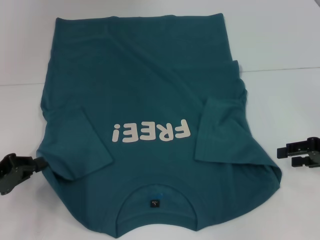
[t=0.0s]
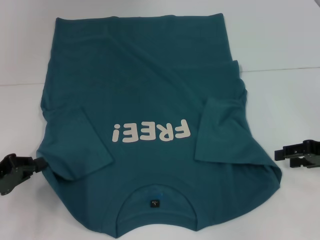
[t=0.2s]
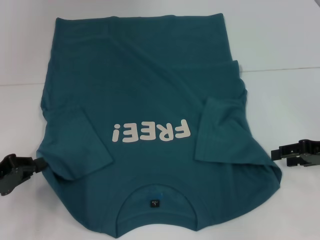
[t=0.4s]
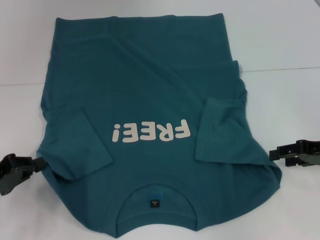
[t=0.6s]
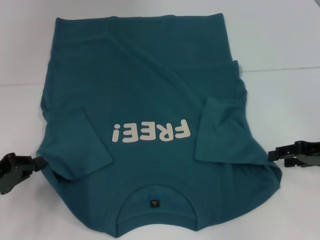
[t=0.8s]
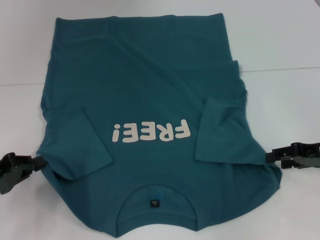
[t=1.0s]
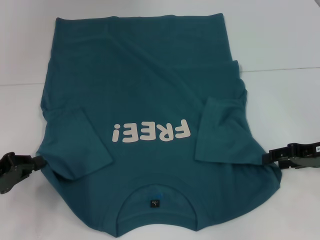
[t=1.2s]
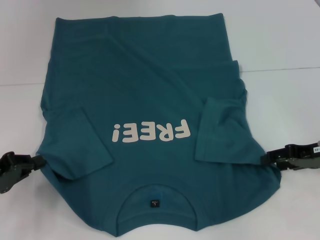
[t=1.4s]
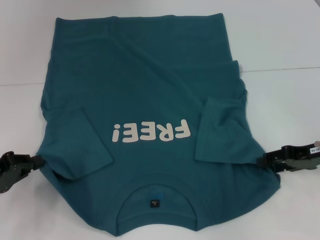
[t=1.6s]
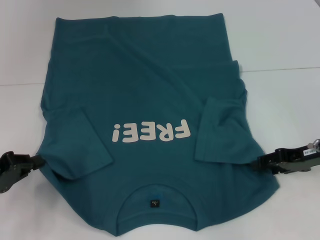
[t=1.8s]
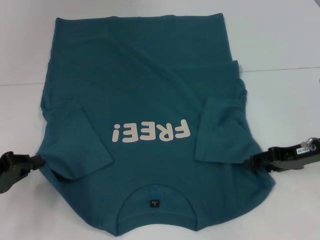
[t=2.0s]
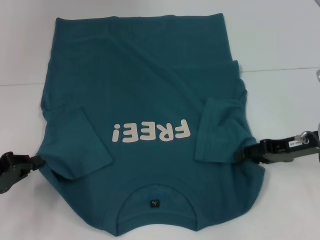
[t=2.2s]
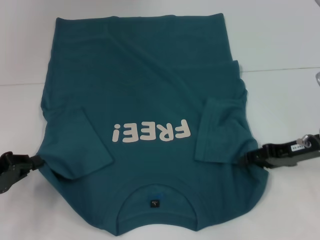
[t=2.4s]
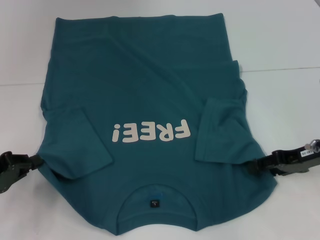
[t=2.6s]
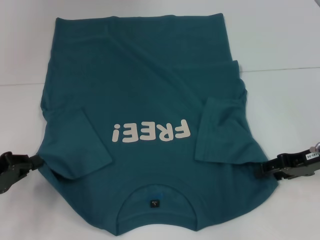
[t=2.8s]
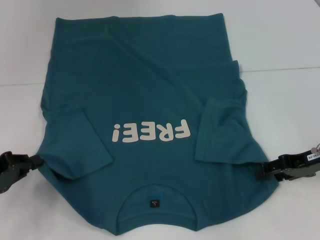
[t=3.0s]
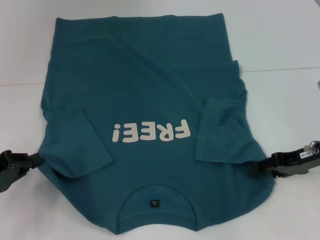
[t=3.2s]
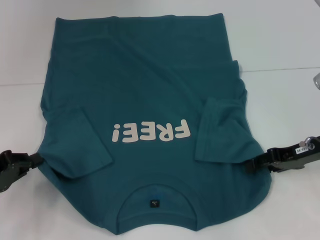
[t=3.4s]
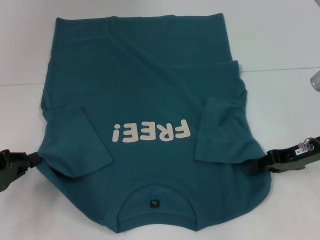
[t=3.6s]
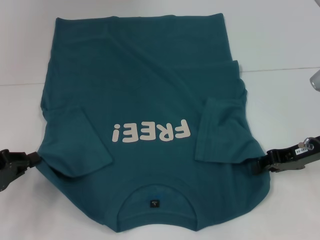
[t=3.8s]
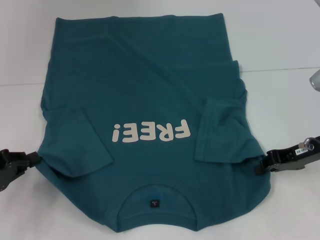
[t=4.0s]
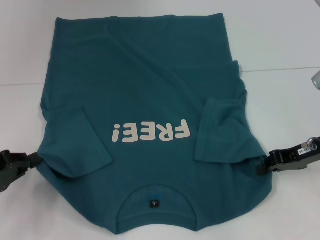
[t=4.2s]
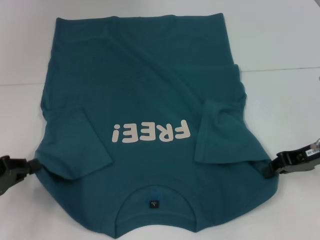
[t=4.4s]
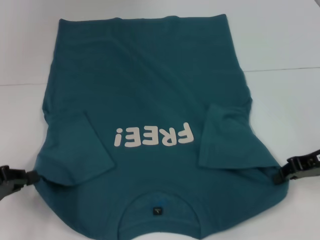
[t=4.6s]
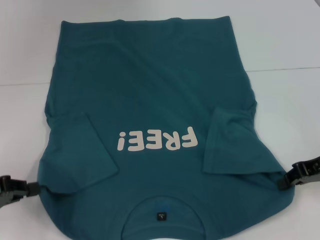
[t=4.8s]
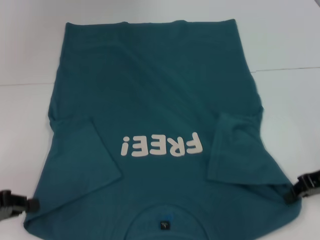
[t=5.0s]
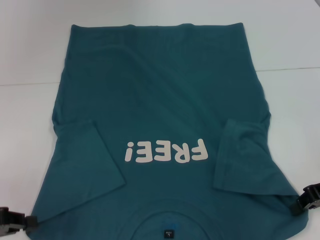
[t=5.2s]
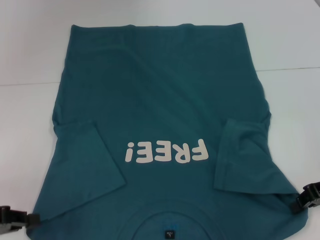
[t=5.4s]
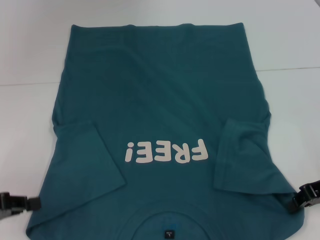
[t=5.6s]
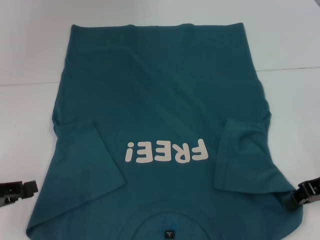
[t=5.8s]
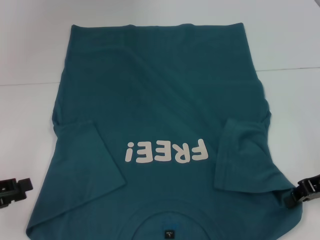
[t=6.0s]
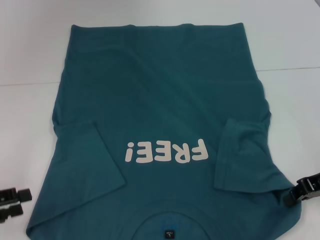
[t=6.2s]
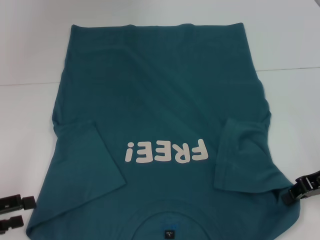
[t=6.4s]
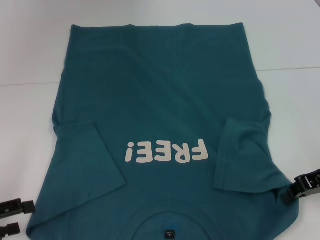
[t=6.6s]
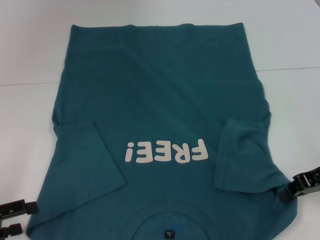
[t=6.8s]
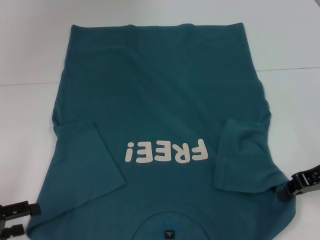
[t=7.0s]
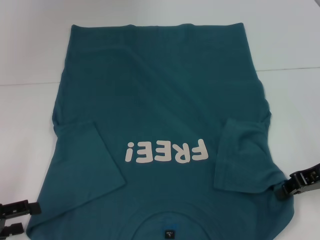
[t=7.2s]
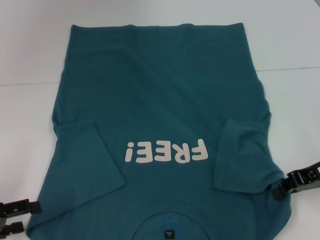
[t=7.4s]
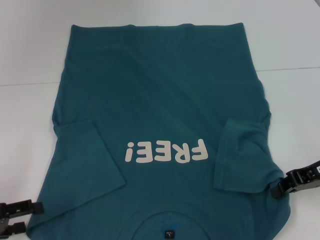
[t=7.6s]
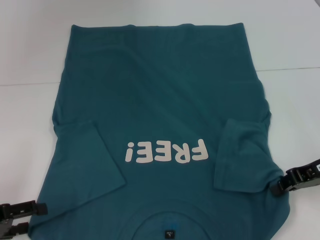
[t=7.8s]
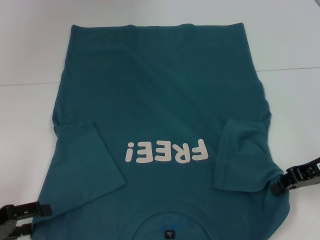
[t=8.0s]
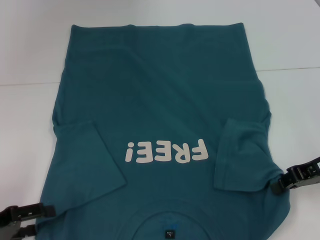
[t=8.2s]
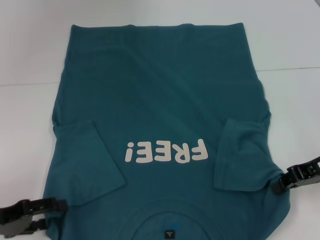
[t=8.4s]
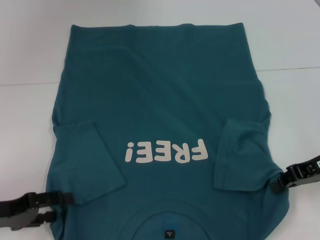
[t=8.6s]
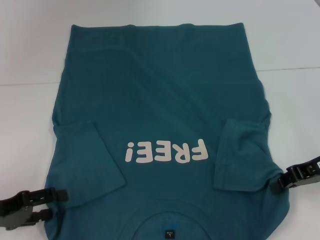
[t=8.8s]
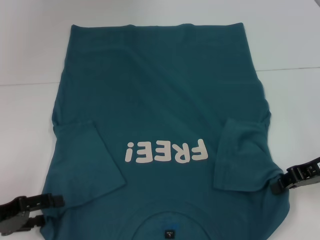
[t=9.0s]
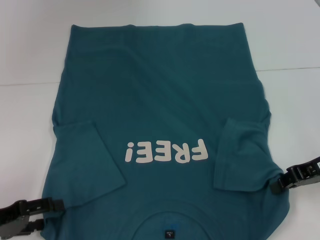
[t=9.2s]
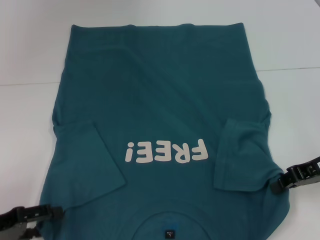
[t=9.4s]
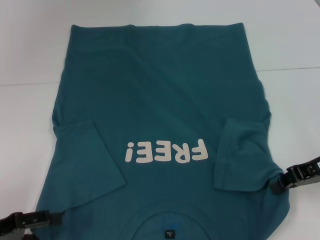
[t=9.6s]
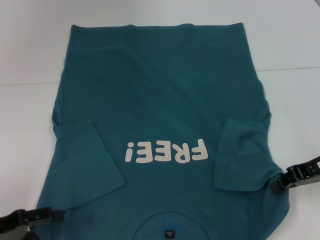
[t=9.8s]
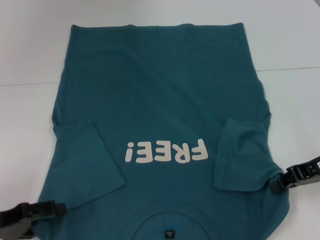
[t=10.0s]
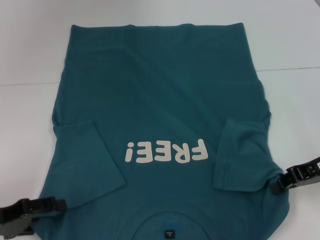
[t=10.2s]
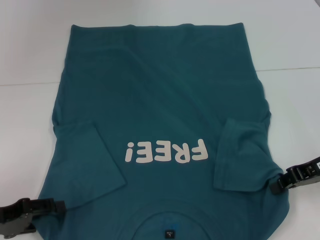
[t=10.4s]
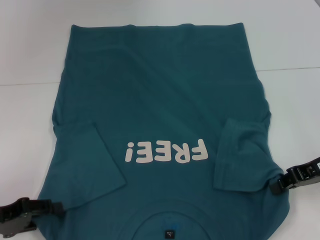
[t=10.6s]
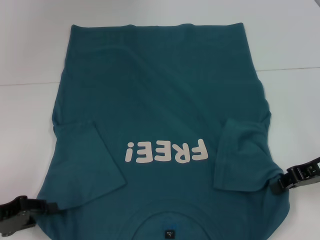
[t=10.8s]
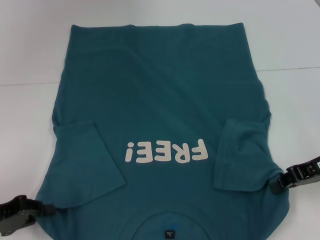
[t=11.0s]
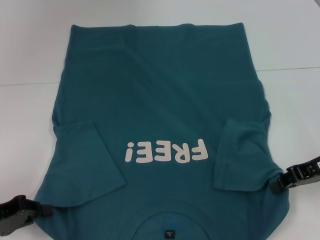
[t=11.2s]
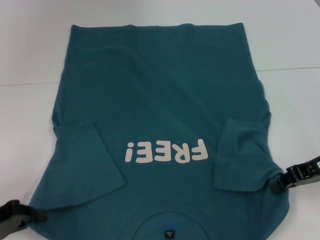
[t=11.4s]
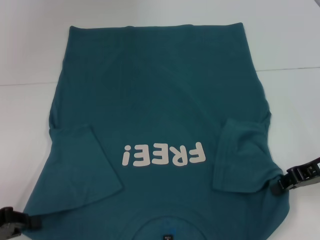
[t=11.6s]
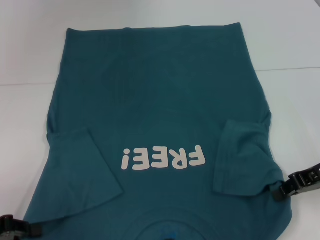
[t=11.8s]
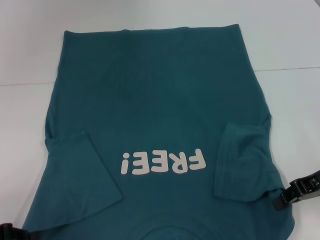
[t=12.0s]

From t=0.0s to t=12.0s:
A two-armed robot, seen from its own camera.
Step, from t=0.0s to t=4.0s: Grab the bottom right corner with your right hand.
From t=0.0s to t=1.6s: The grippers make only small movements.
From t=1.6s to t=3.0s: The grippers make only small movements.
From t=3.0s to t=4.4s: The right gripper closes.
From t=6.0s to t=7.6s: The left gripper opens its fingers.
From t=7.6s to t=10.4s: The grippers make only small movements.
From t=10.4s to t=12.0s: The left gripper closes up.

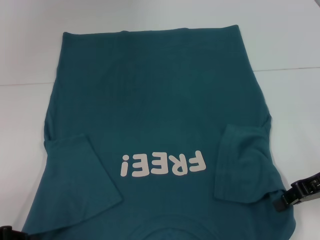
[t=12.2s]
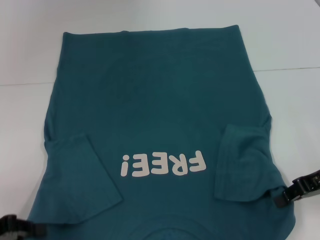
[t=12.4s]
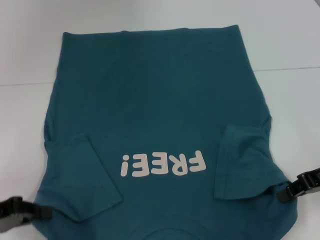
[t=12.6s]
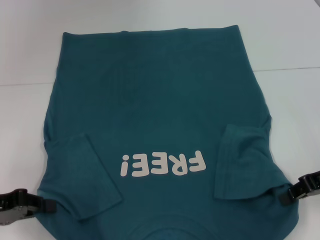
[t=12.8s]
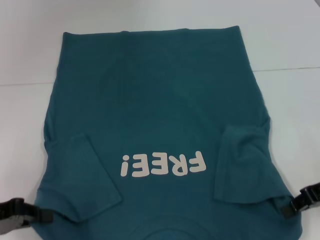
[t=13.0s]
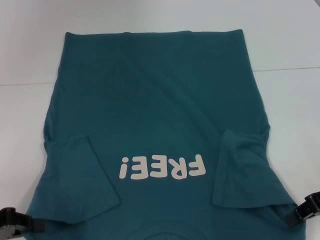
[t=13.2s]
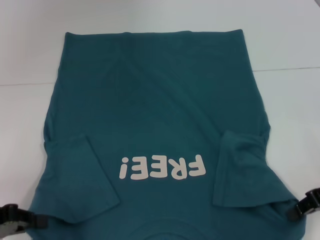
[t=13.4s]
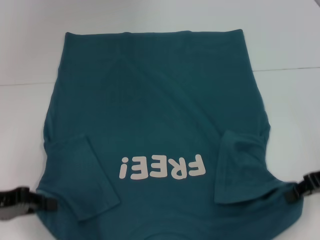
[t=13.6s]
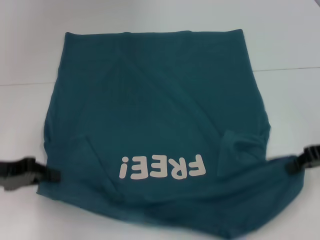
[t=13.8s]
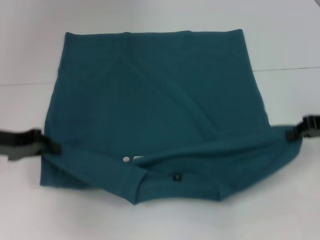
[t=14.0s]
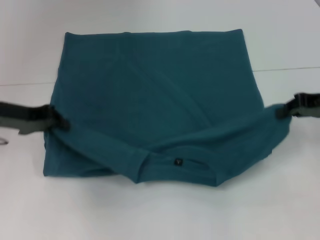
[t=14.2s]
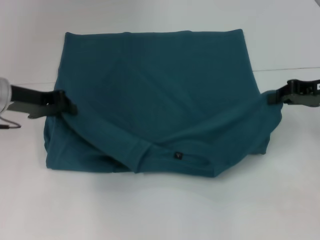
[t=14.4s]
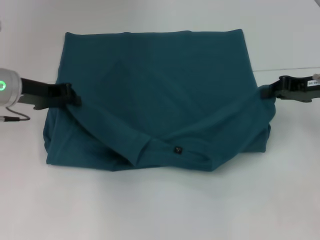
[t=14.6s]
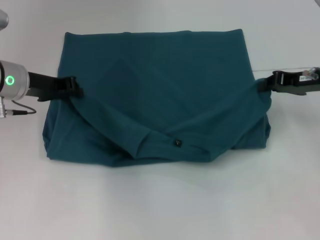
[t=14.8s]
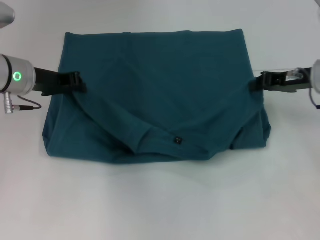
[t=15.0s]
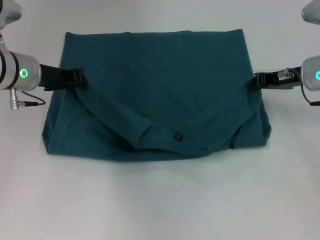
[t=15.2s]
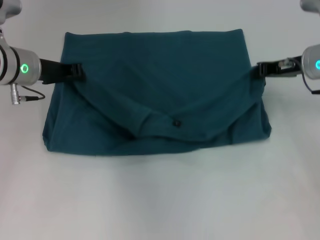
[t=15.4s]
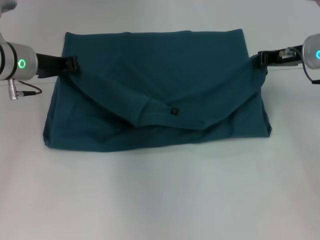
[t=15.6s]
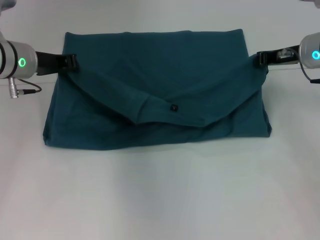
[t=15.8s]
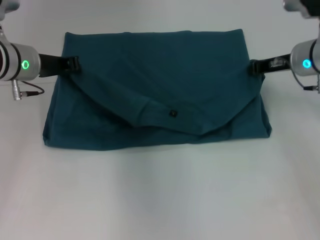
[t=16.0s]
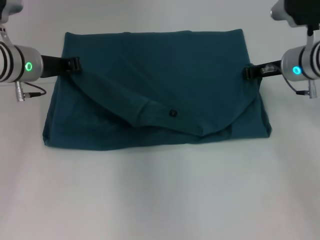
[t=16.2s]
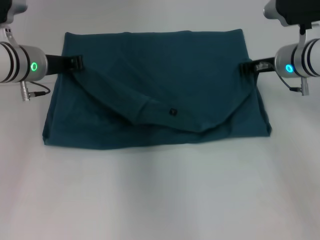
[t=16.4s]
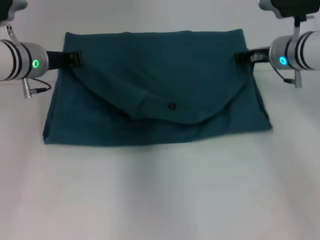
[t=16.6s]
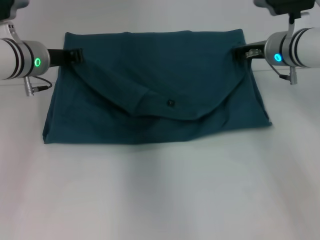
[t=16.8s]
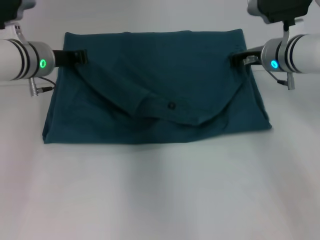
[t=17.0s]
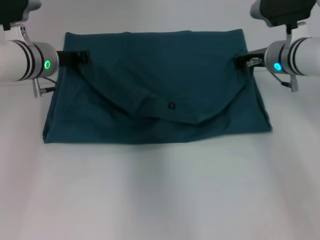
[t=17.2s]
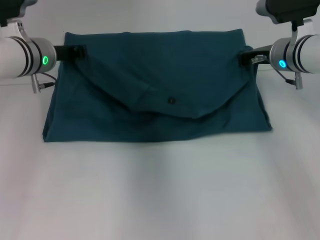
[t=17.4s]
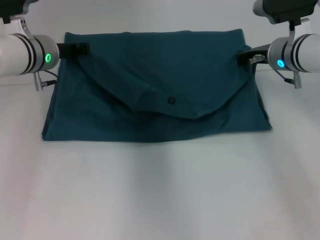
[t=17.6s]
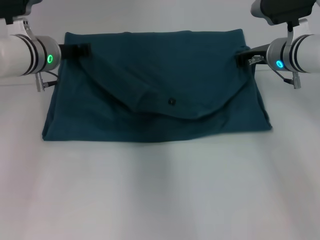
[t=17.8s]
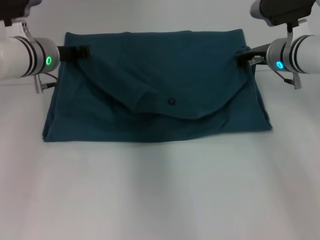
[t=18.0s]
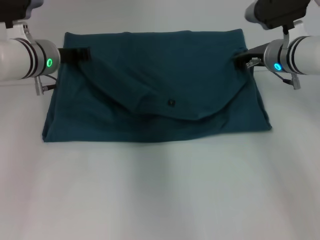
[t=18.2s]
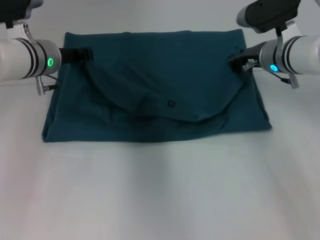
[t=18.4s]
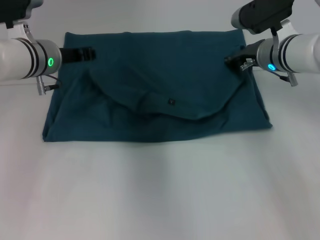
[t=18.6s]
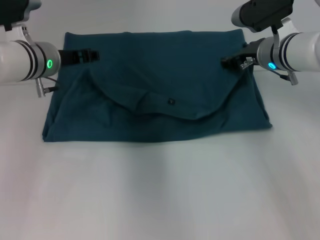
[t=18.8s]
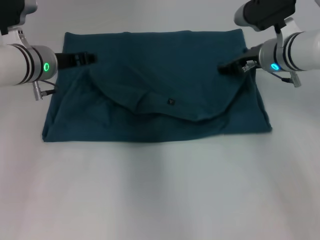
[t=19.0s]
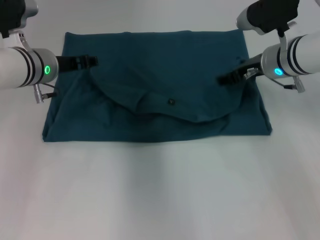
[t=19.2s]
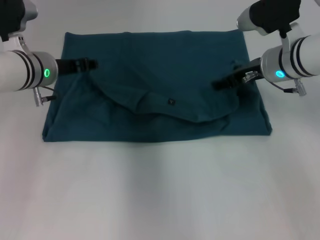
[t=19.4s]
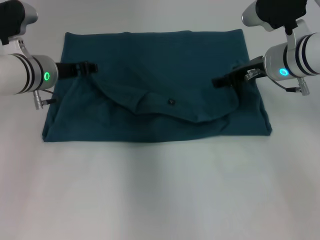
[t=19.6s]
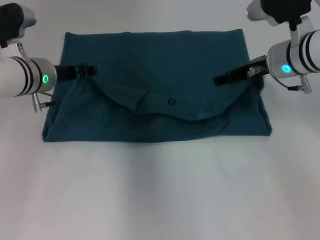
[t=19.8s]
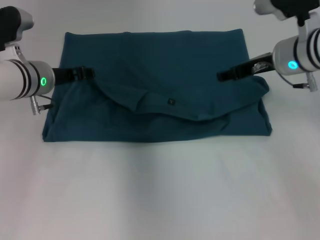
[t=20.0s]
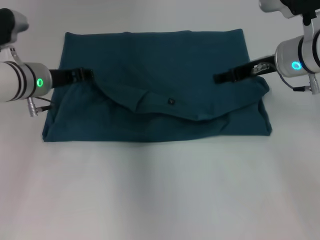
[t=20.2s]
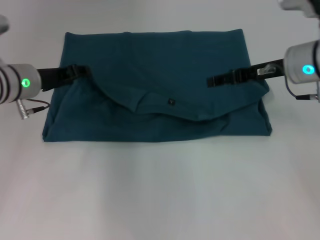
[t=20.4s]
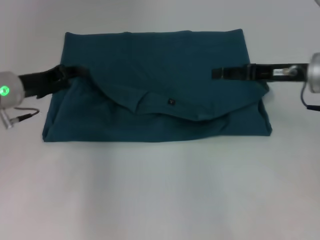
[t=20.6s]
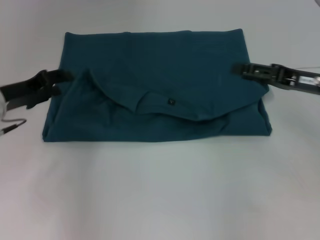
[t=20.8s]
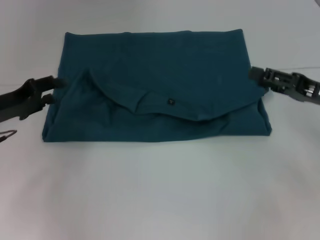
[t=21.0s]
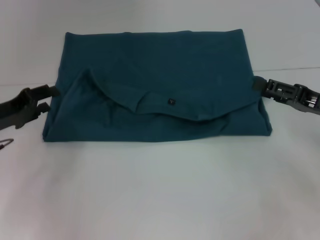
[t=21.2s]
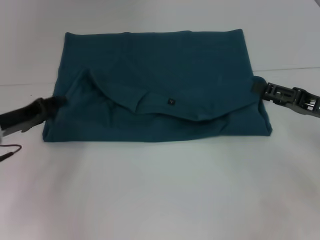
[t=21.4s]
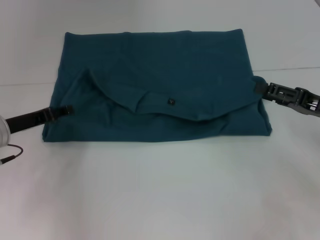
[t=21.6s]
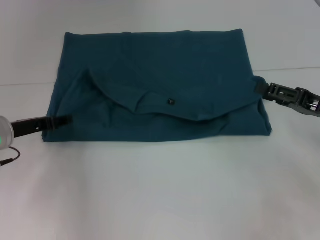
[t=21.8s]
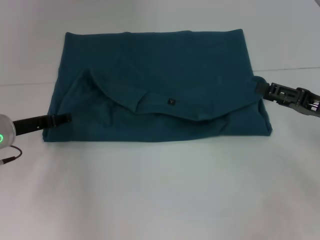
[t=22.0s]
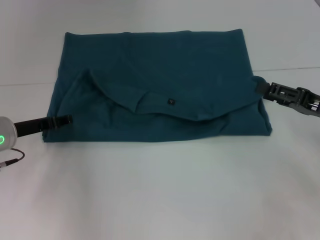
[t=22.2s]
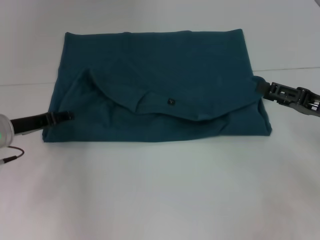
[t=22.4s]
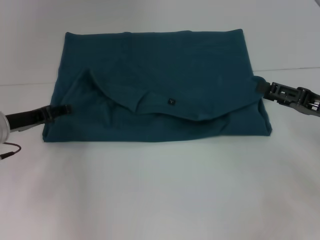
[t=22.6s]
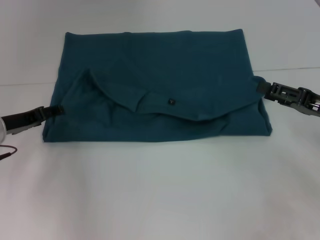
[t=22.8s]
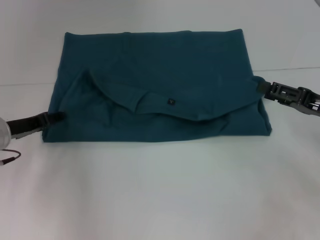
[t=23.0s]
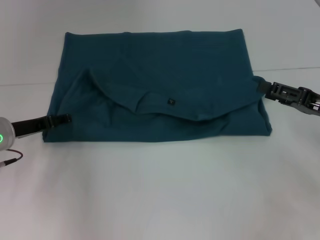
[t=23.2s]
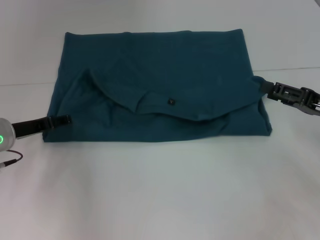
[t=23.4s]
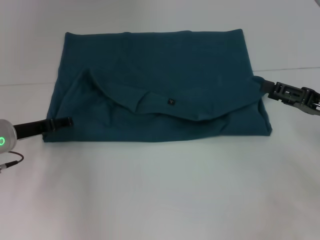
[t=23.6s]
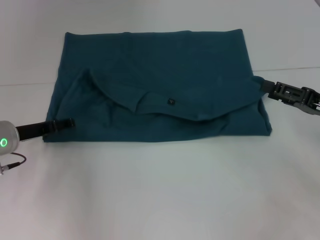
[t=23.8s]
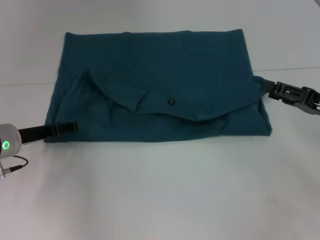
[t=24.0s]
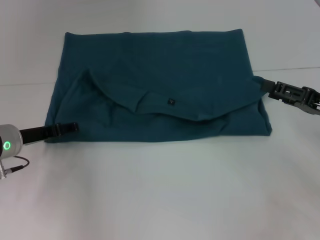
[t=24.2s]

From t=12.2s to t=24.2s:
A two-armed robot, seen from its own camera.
Step, from t=12.2s to t=19.4s: Fold the clothes to the left.
Step, from t=12.2s to t=19.4s: Fold the clothes to the right.
From t=12.2s to t=13.8s: The left gripper is displaced forward by approximately 10 cm.
From t=13.8s to t=15.2s: The left gripper moves forward and to the right, about 15 cm. Meanwhile the right gripper travels forward and to the left by about 10 cm.
From t=15.2s to t=16.6s: The right gripper ends up some 5 cm from where it was.
From t=16.6s to t=18.2s: The grippers make only small movements.
From t=18.2s to t=19.8s: The right gripper opens its fingers; the left gripper opens.
From t=19.8s to t=21.2s: The left gripper travels to the left and backward by roughly 15 cm. The right gripper travels backward, to the right and downward by roughly 15 cm.
From t=22.6s to t=24.2s: The grippers make only small movements.
